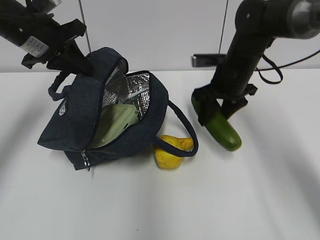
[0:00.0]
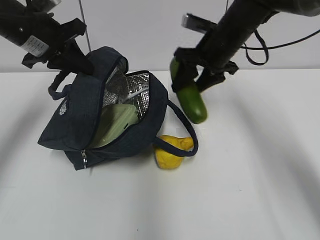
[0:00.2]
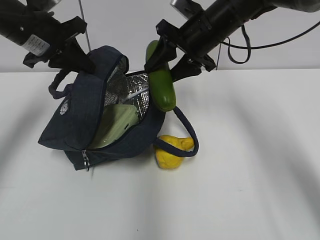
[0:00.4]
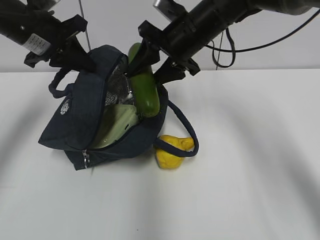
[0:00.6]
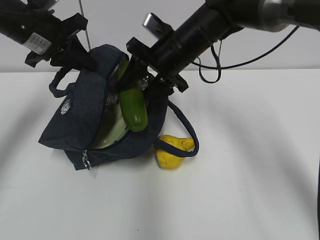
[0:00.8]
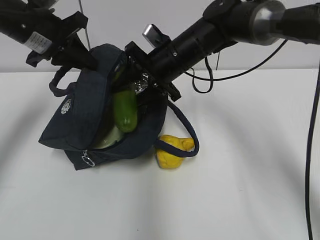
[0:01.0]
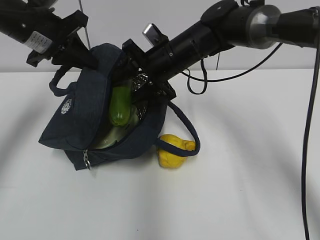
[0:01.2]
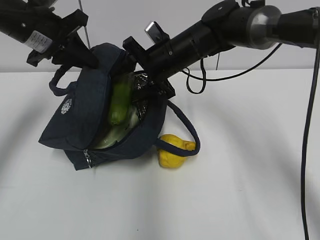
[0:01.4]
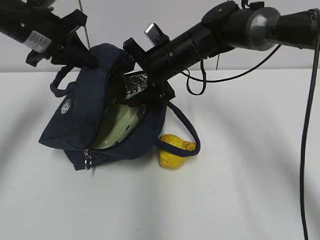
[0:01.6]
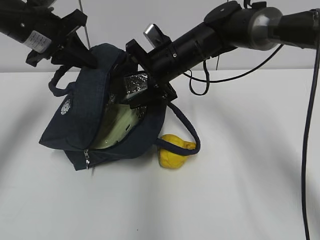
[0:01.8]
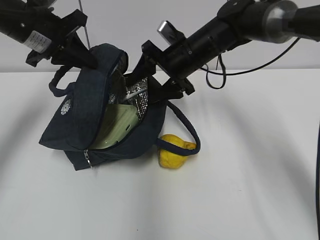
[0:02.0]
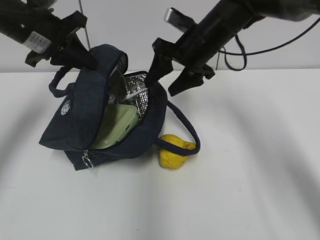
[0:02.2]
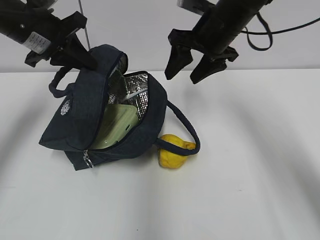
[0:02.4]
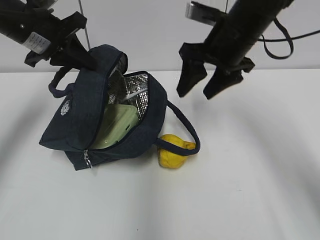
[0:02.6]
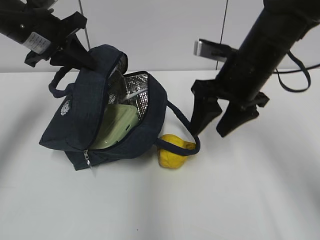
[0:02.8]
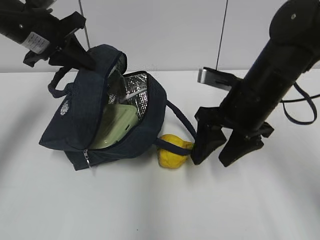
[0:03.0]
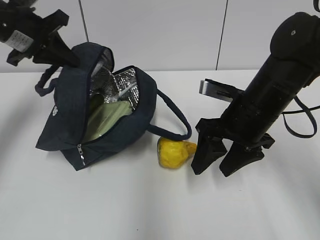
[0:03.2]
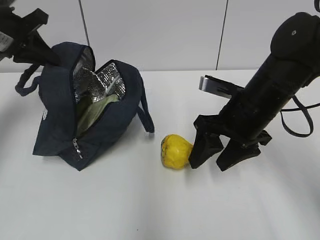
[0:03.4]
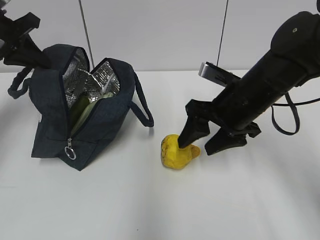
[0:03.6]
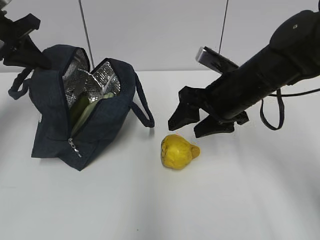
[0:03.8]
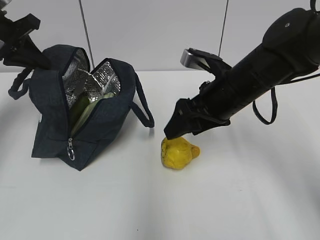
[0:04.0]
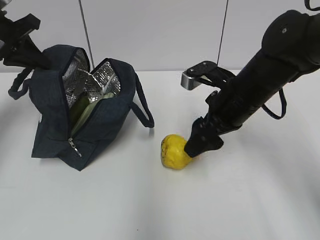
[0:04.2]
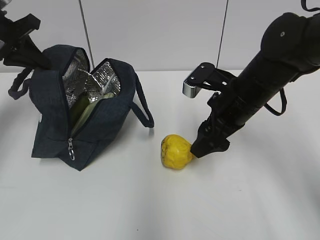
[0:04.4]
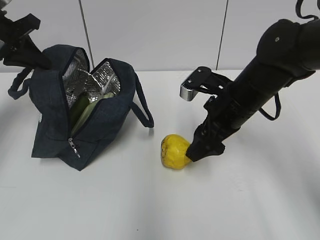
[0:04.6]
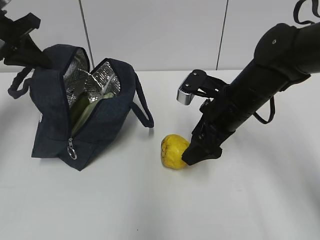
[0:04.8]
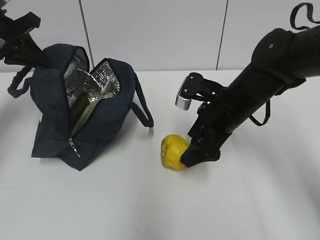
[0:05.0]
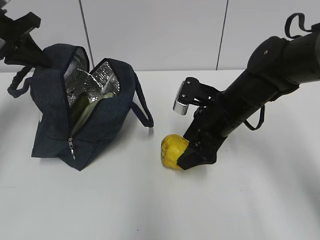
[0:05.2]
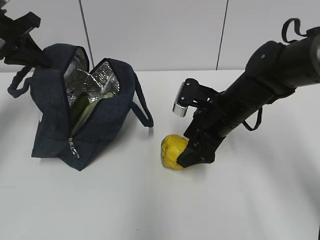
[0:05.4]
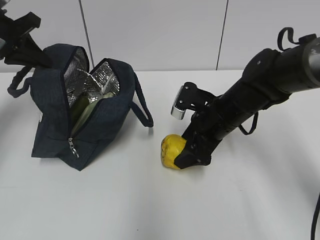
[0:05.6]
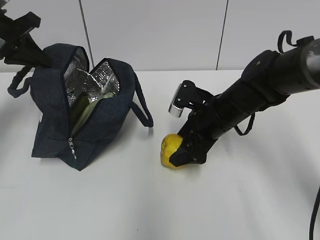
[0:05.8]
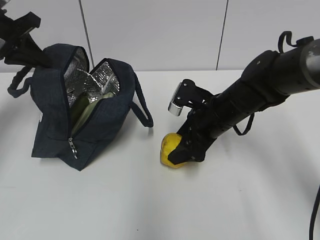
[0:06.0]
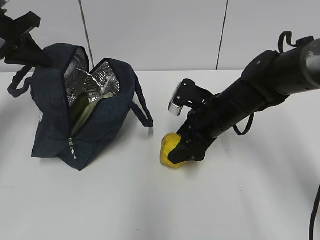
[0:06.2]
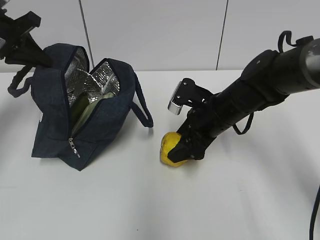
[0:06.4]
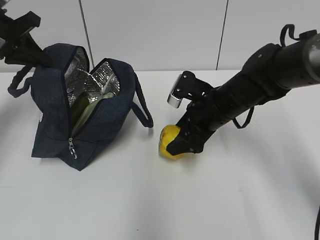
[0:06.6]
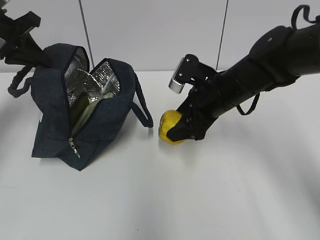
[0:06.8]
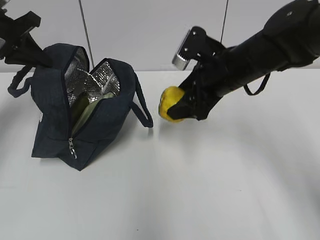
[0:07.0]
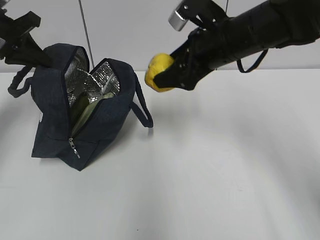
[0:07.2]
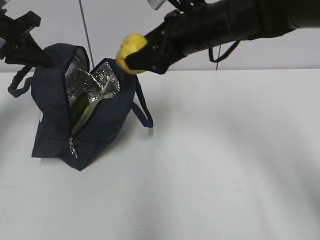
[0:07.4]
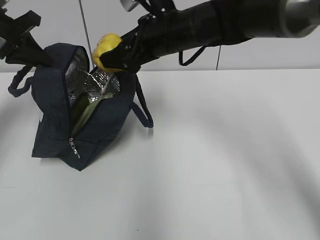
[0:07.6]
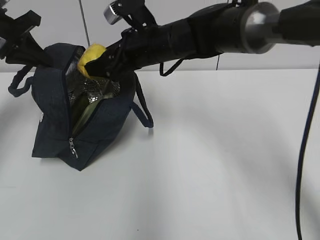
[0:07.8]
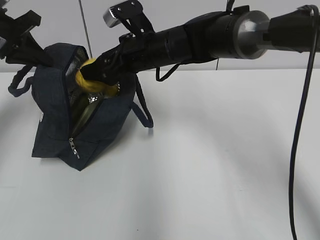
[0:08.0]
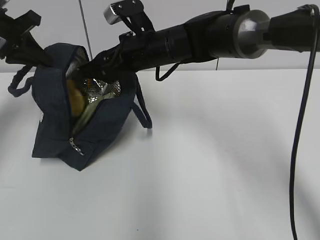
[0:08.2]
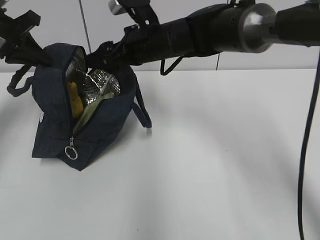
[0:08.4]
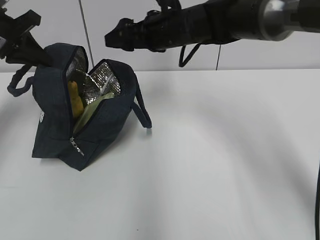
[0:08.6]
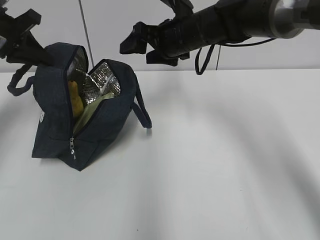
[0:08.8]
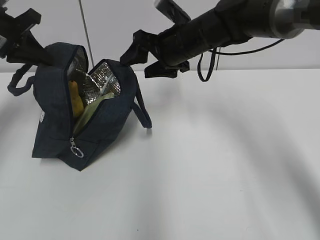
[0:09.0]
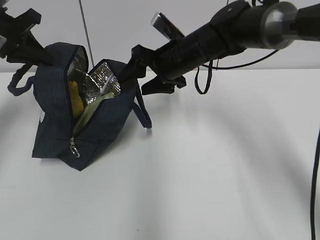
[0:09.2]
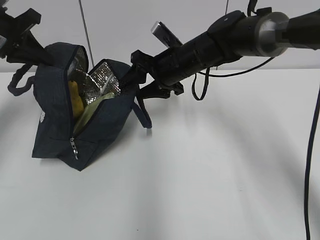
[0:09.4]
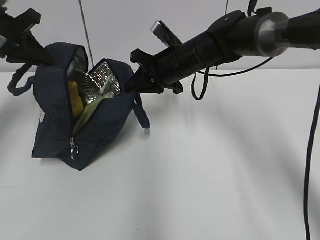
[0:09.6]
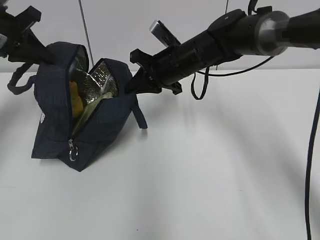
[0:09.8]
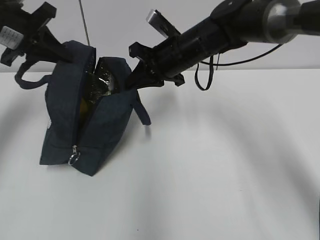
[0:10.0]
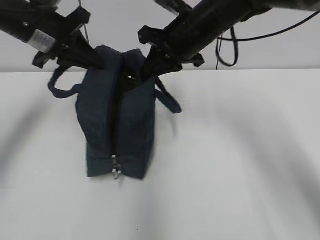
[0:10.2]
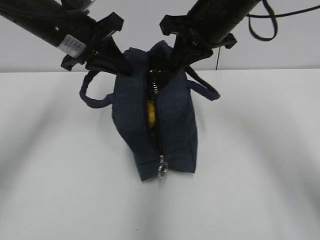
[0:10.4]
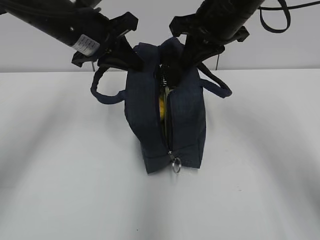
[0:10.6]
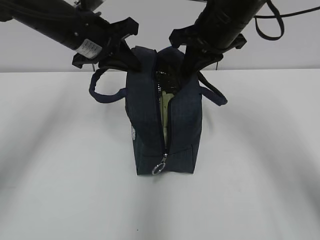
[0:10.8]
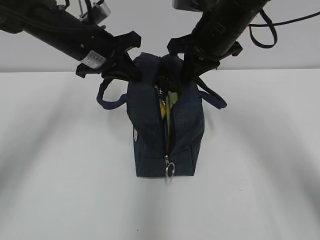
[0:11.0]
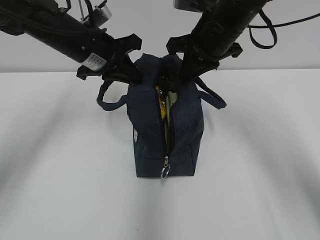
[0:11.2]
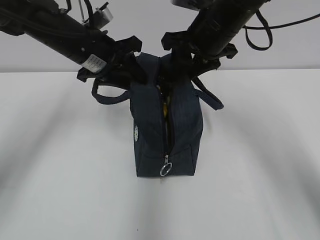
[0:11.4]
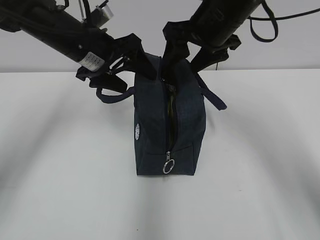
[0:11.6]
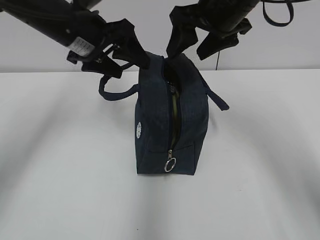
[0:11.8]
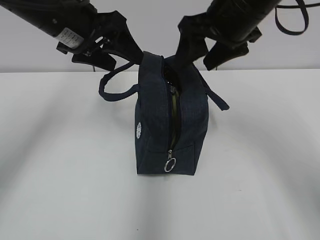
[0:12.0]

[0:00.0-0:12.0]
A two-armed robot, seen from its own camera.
Step, 0:00.0 to 0:01.6: Place it into the bag with your right hand.
Step, 0:02.0 to 0:06.4: Grab the pear with your right hand.
Step, 0:08.4 to 0:09.8: Grab the lunch bag with your right hand.
Step, 0:10.0 to 0:11.6: Move the lunch bag to the right.
0:00.0 to 0:01.6: The right gripper heads to the left, covering some 10 cm, and opens its fingers.
0:01.6 to 0:03.0: The right gripper moves backward and to the right, approximately 15 cm.
0:03.0 to 0:04.4: The left gripper moves to the left, some 10 cm.
0:04.4 to 0:06.0: The right gripper moves downward, some 5 cm.
0:06.0 to 0:07.6: The right gripper travels upward and to the left by approximately 15 cm.
0:07.6 to 0:09.0: The right gripper moves roughly 5 cm.
0:09.0 to 0:10.4: The left gripper moves to the right, some 15 cm, while the right gripper goes some 10 cm upward and backward, and closes.
0:10.4 to 0:12.0: The right gripper opens, while the left gripper opens up.

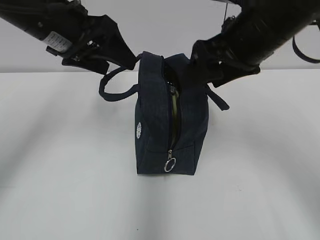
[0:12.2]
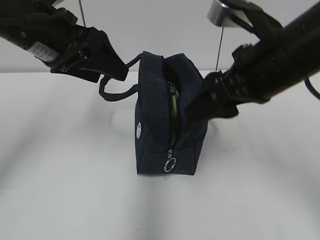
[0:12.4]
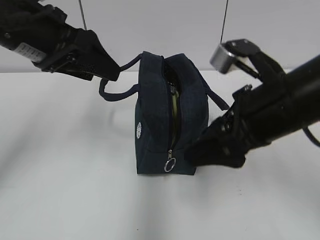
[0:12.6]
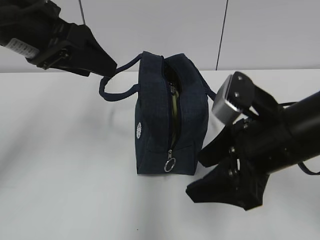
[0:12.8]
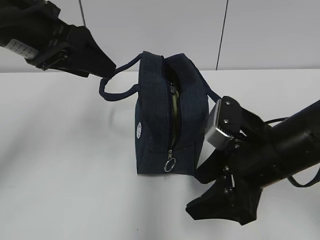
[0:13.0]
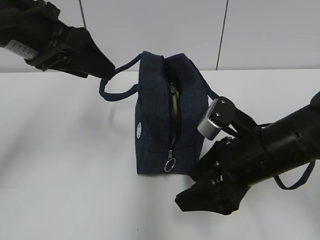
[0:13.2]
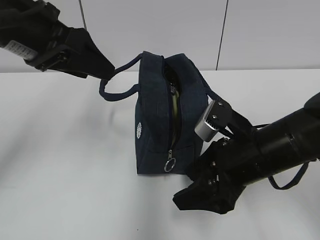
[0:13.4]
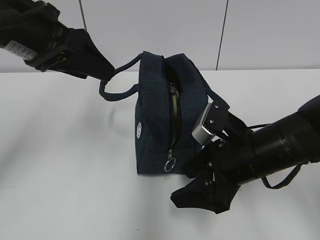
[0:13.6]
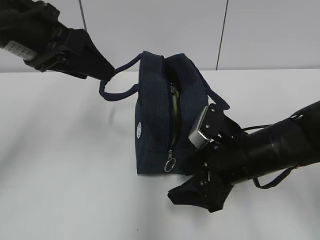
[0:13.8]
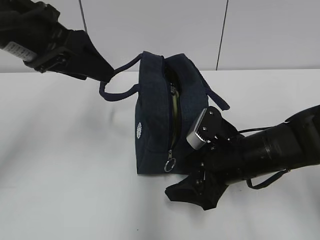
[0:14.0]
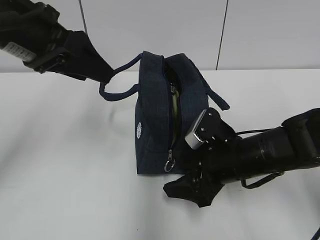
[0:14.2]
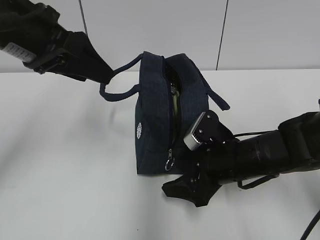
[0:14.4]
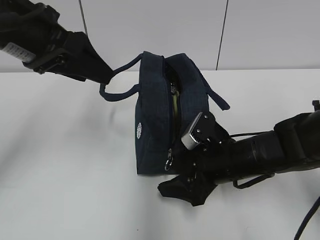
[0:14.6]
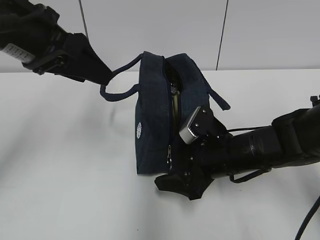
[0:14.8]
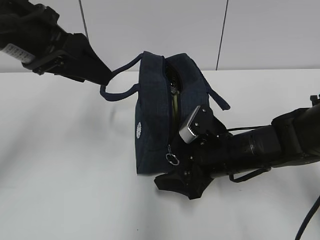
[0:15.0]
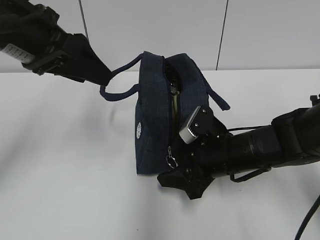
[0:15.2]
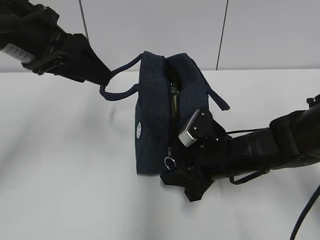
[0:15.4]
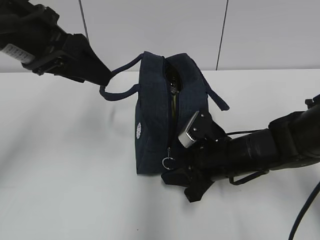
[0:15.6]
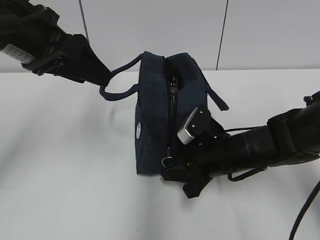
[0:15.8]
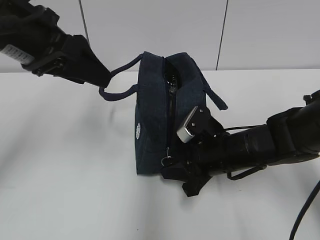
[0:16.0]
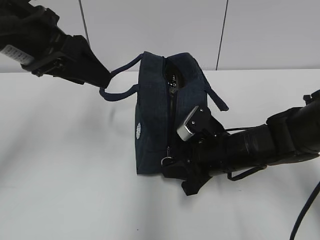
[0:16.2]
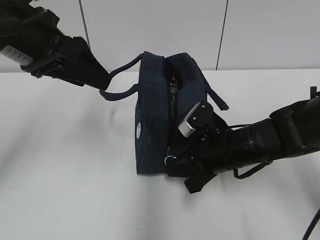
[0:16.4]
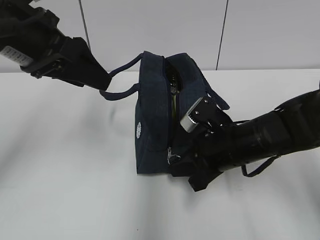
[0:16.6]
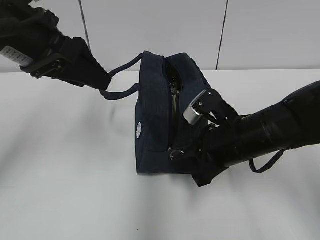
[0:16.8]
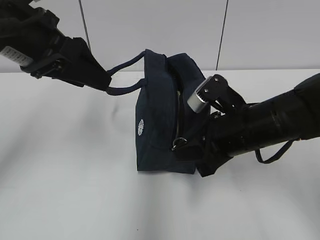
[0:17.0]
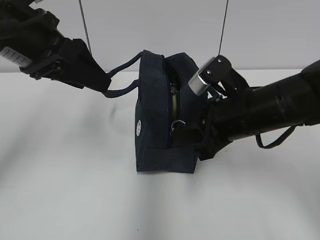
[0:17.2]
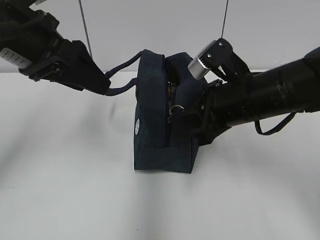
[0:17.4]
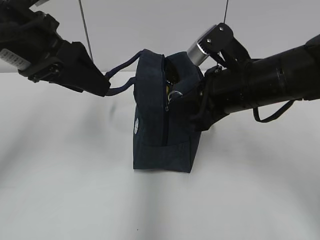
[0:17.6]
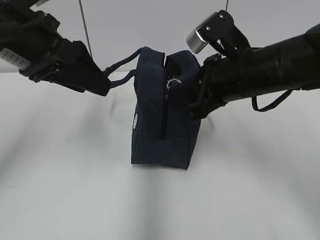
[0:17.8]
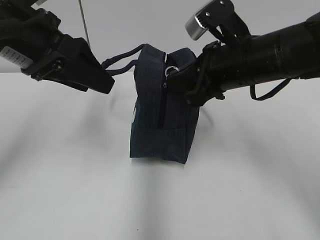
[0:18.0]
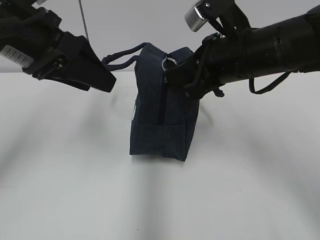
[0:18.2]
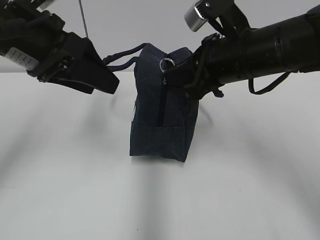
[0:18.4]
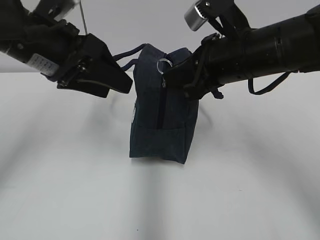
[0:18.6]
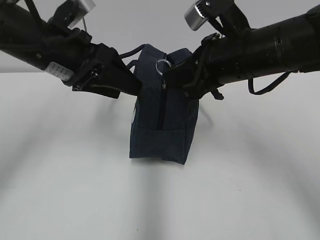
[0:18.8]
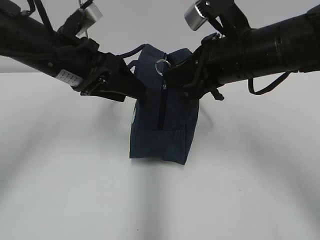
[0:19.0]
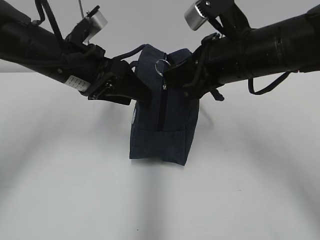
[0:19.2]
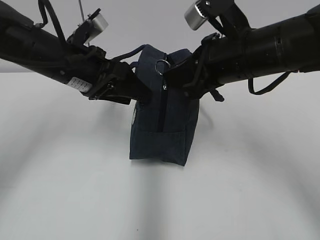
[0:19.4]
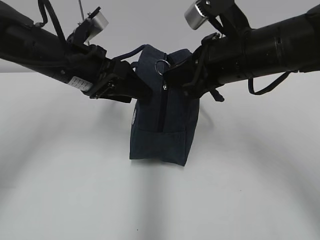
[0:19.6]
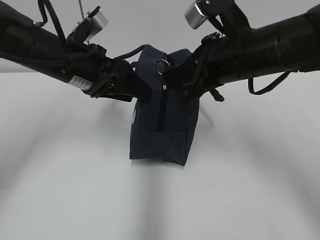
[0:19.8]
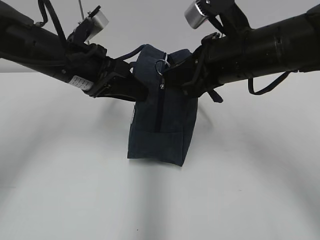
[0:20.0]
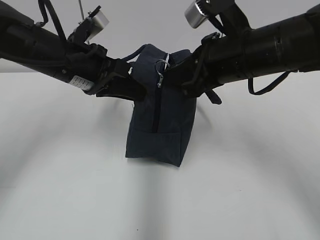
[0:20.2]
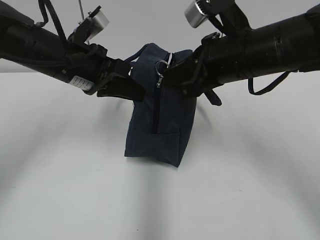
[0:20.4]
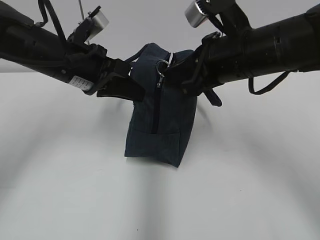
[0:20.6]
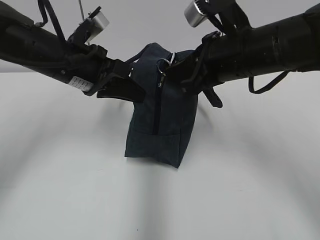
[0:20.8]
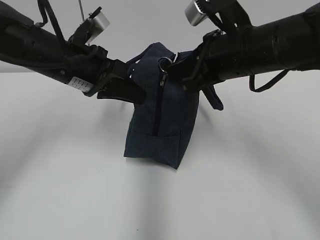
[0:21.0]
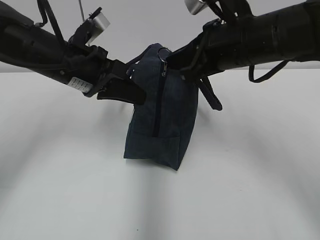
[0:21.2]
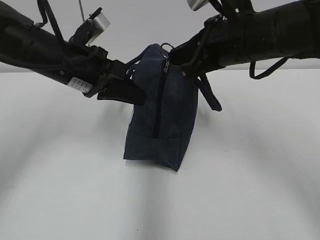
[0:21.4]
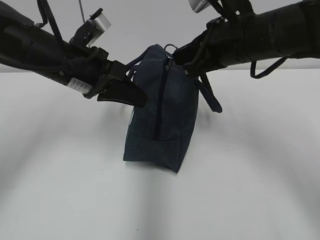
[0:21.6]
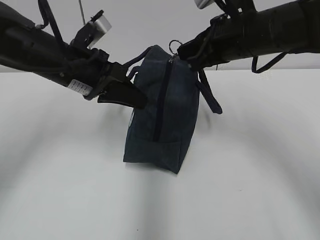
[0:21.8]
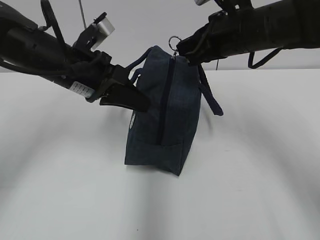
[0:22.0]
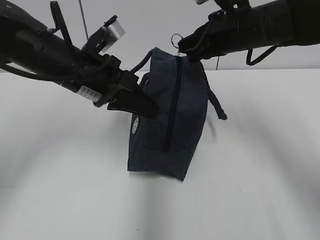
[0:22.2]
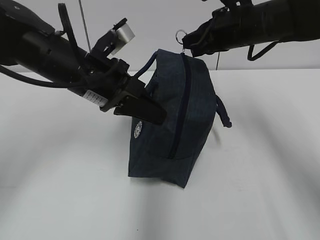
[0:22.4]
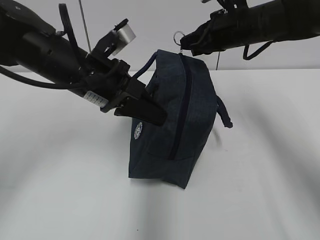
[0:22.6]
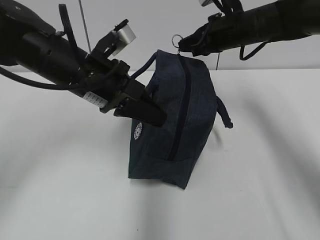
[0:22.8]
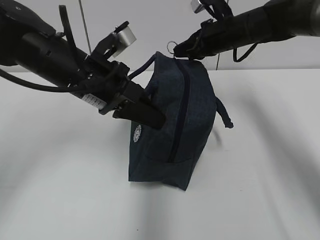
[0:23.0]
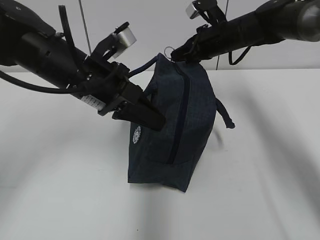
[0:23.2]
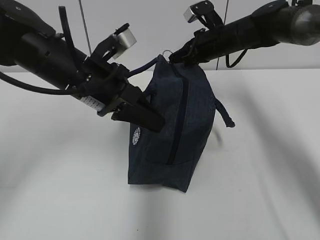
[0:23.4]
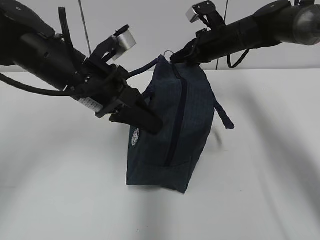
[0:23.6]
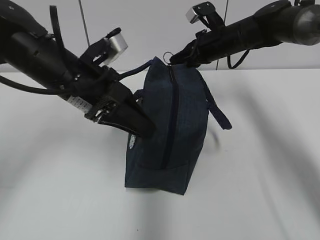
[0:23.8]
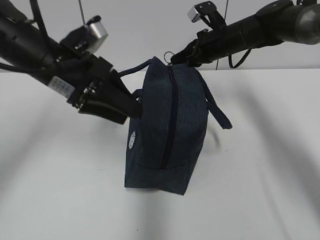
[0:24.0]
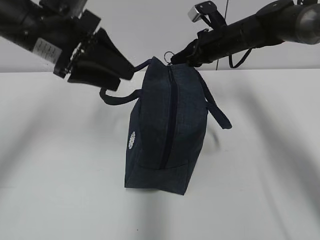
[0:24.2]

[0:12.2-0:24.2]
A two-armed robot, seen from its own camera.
Step, 0:12.2 to 0:23.8: Grab the lunch bag with your left hand.
0:12.2 to 0:13.8: The right gripper is displaced downward by some 15 cm. Meanwhile the left gripper changes place by approximately 5 cm.
0:13.8 to 0:15.2: The grippers move only a little.
0:15.2 to 0:16.6: The right gripper closes up.
0:16.6 to 0:18.2: The right gripper is displaced upward by roughly 15 cm.
0:18.2 to 0:19.8: The left gripper heads downward and forward, covering about 10 cm.
0:19.8 to 0:21.2: The left gripper closes up.
0:21.2 to 0:22.6: The right gripper goes about 10 cm forward.
0:22.6 to 0:24.2: The left gripper shifts some 10 cm upward and to the left, and opens up. The right gripper travels forward and downward by approximately 10 cm.
